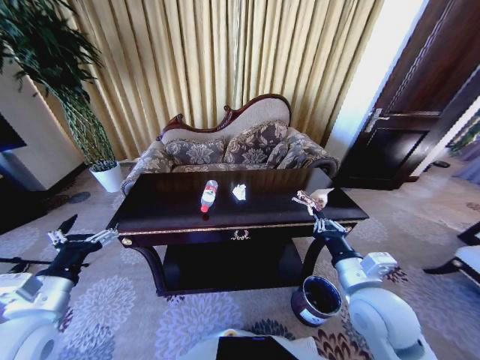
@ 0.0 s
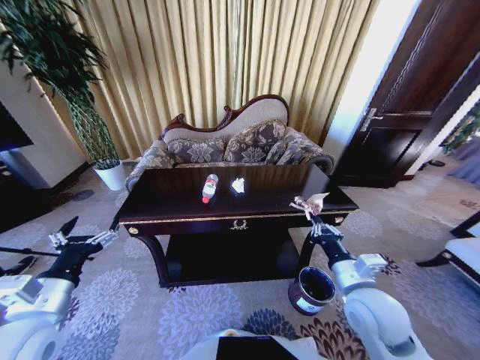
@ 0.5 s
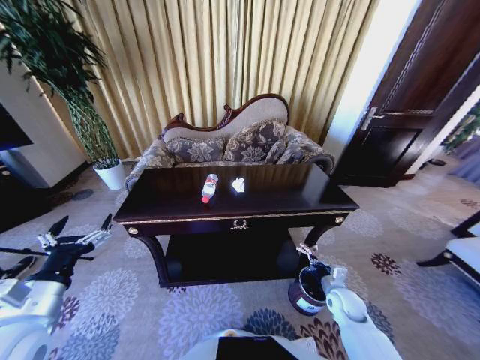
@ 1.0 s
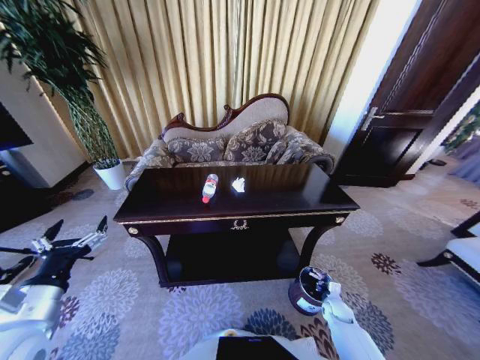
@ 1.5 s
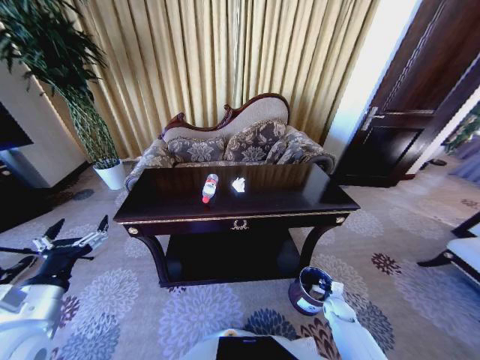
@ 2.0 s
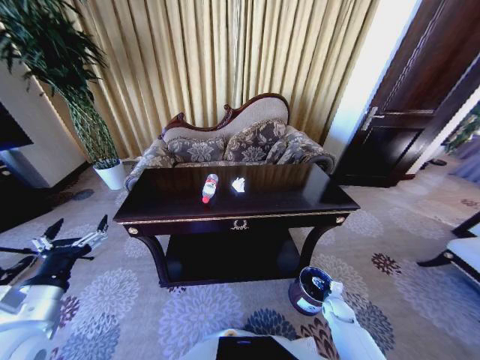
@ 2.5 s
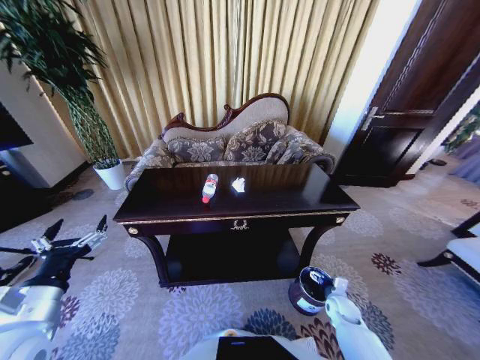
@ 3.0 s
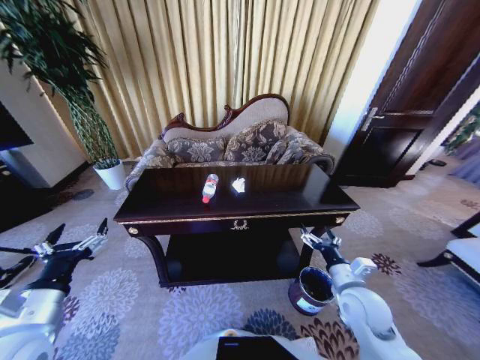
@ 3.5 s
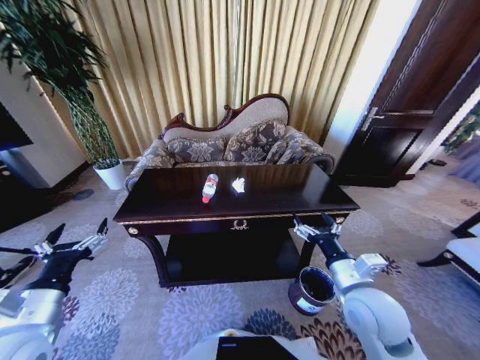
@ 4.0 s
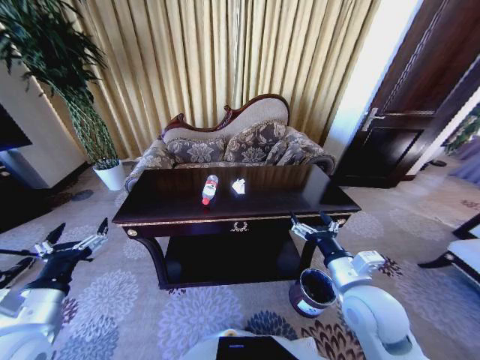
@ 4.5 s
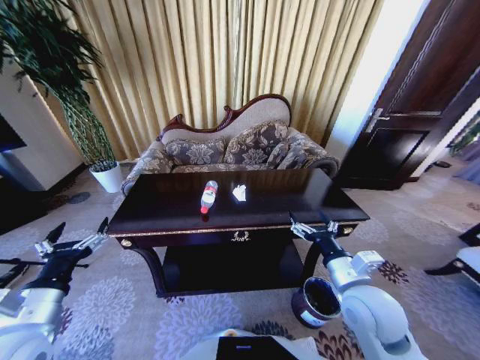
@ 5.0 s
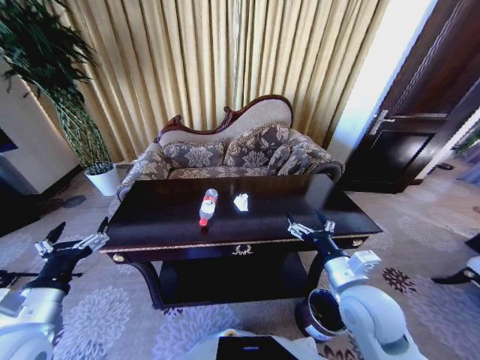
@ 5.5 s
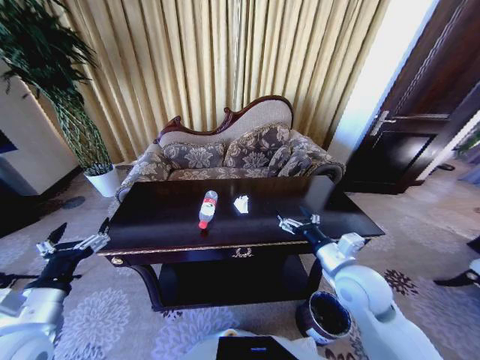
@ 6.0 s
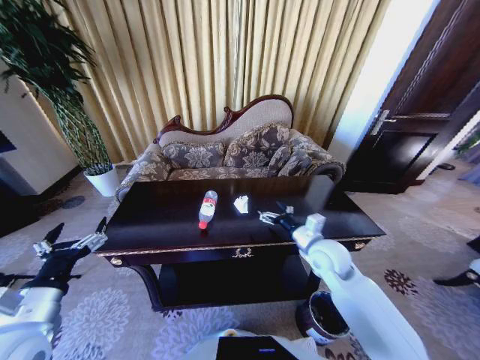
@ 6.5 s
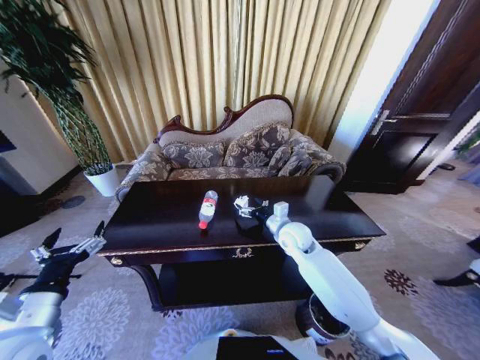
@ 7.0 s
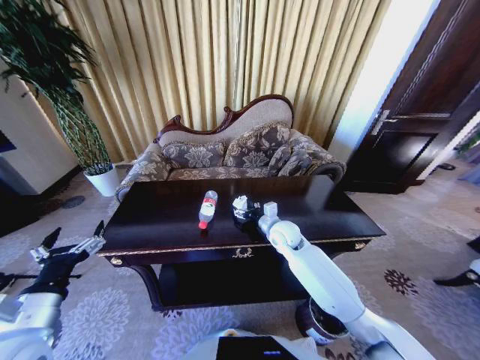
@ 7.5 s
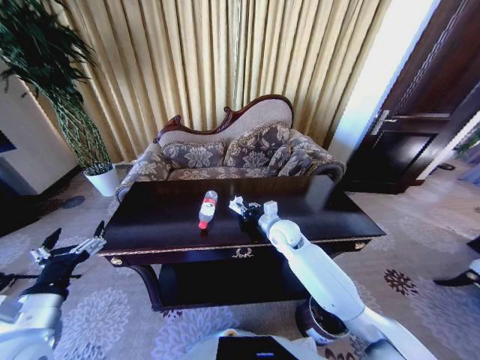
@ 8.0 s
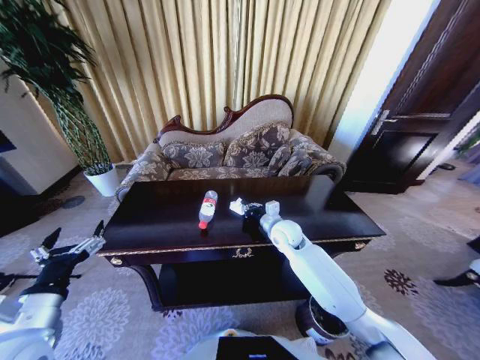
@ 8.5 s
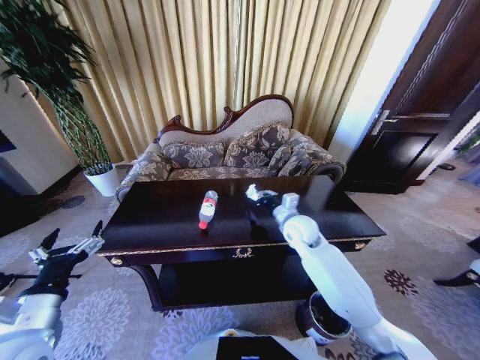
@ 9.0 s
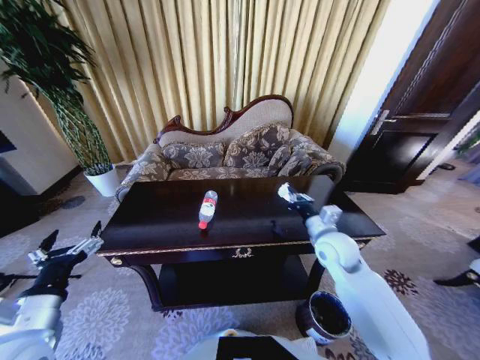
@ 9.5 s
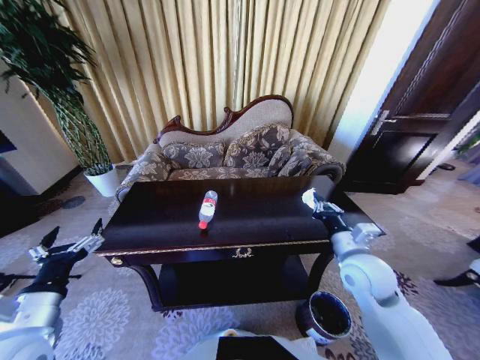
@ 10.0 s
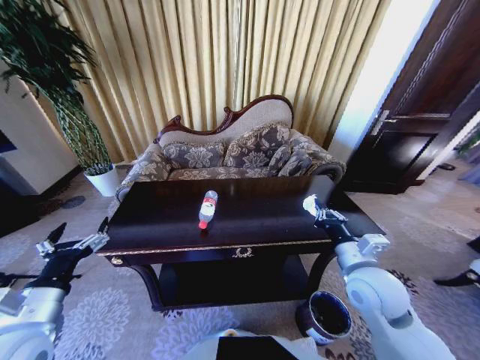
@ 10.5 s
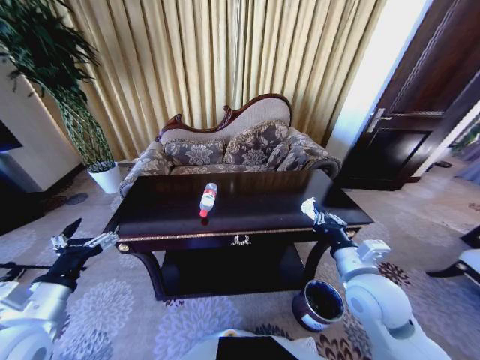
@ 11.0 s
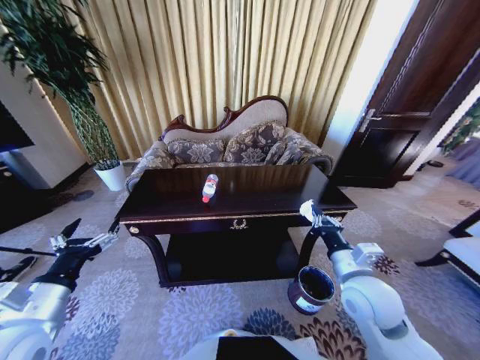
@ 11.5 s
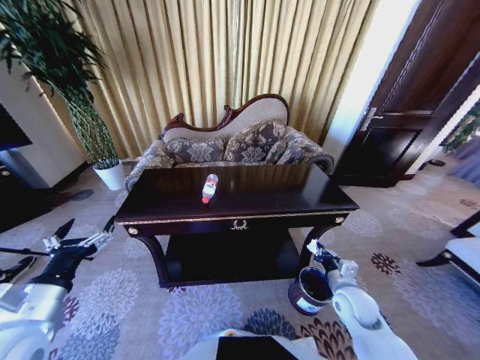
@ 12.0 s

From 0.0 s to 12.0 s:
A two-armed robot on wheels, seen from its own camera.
Task of the whole recording: Move to the front of the table and place the trash on the table into the trash bin.
From 0.0 s to 2.0 s: The right gripper goes approximately 35 cm downward, and opens its fingers.
From 2.0 s to 4.0 s: The right gripper travels upward by about 35 cm, and opens up.
From 6.0 s to 8.0 s: The right gripper moves forward and to the left, about 20 cm, and closes.
From 8.0 s to 10.0 s: The right gripper shifts roughly 20 cm backward, to the right and upward.
From 10.0 s to 12.0 s: The right gripper goes roughly 15 cm downward.

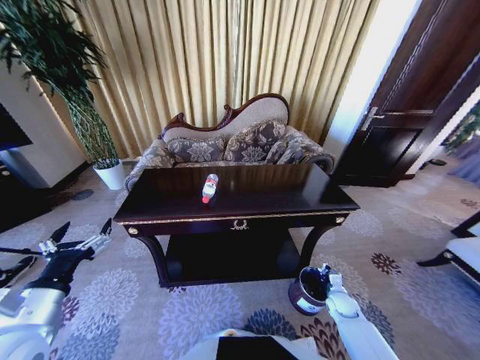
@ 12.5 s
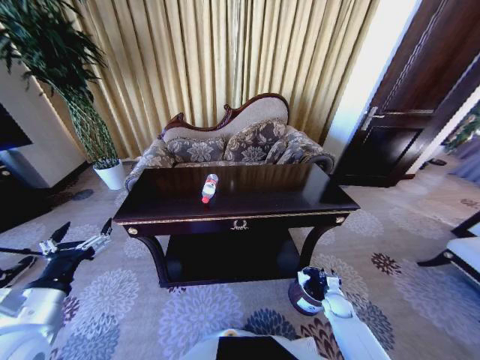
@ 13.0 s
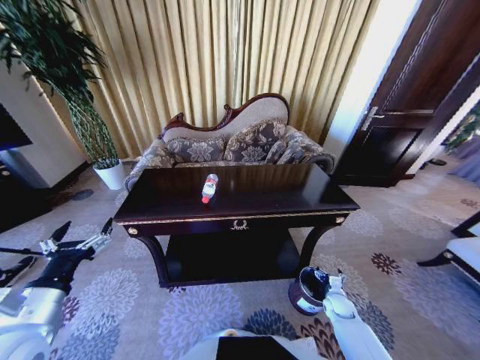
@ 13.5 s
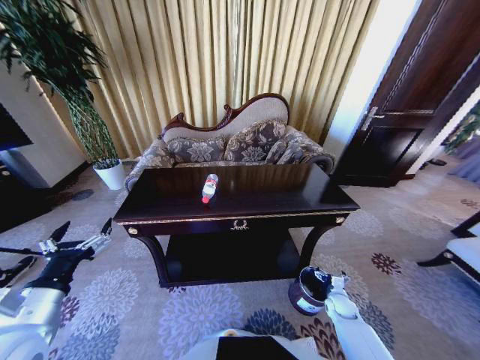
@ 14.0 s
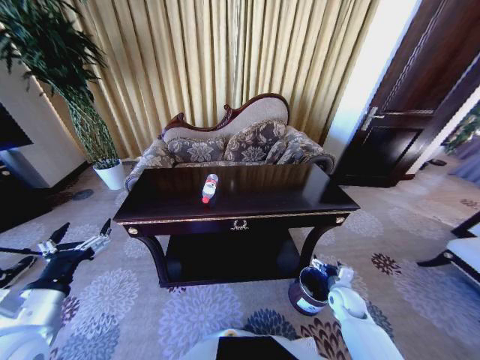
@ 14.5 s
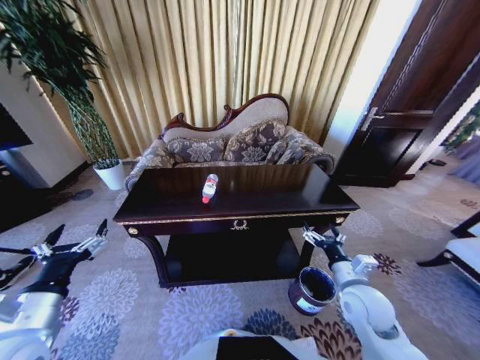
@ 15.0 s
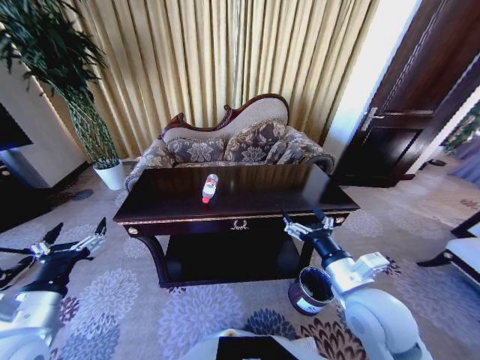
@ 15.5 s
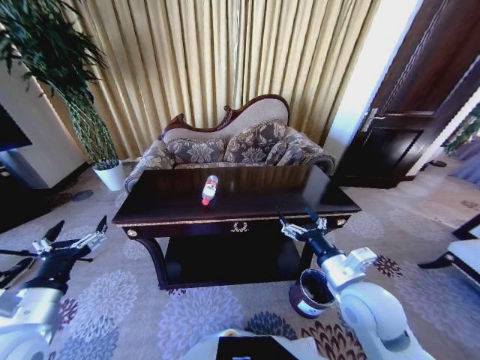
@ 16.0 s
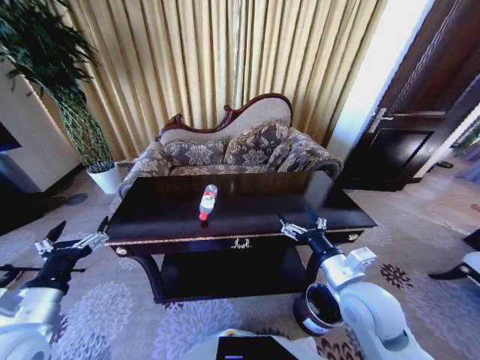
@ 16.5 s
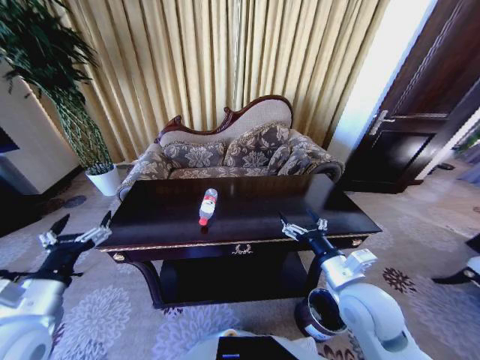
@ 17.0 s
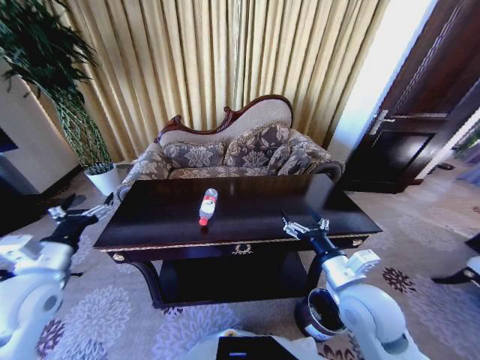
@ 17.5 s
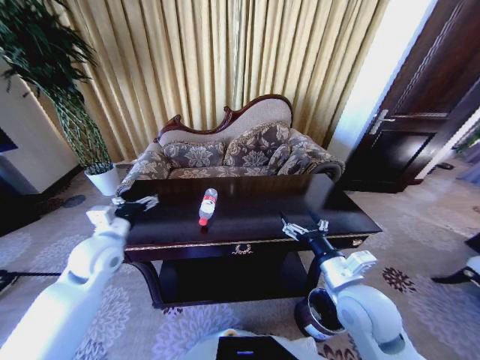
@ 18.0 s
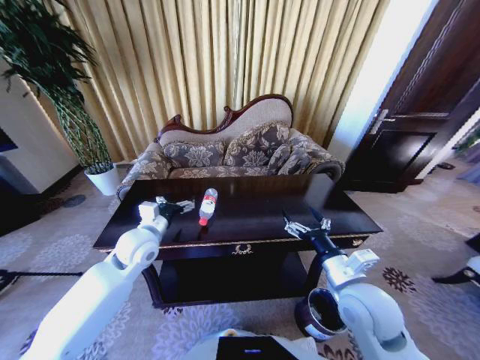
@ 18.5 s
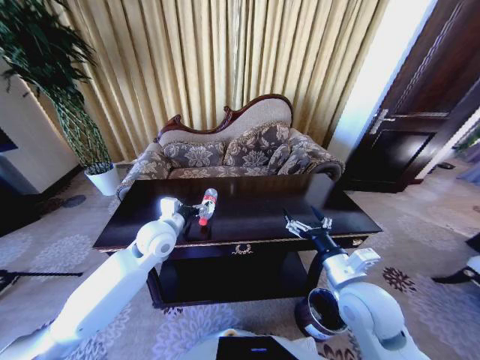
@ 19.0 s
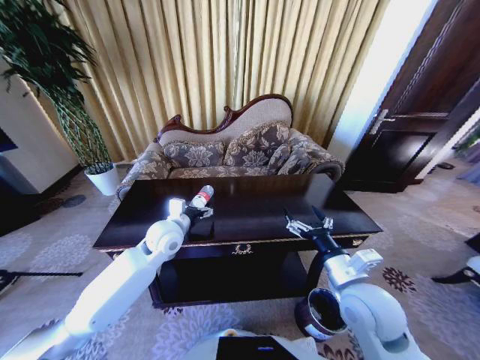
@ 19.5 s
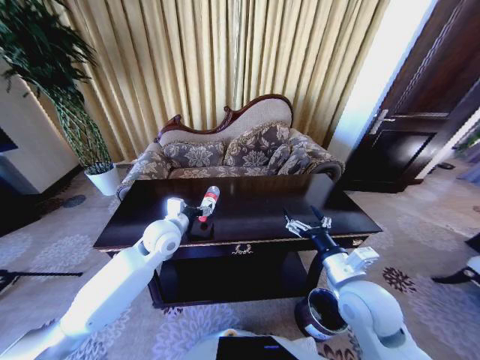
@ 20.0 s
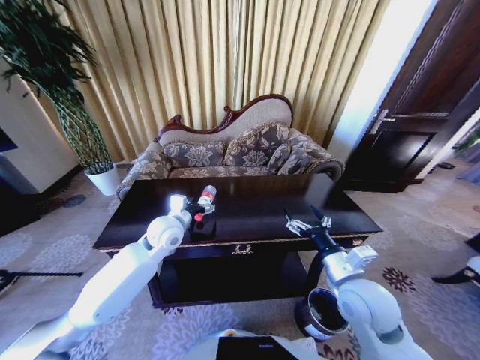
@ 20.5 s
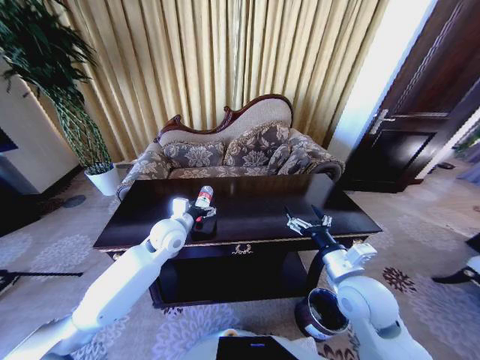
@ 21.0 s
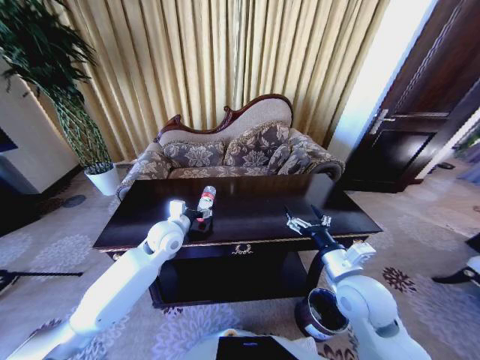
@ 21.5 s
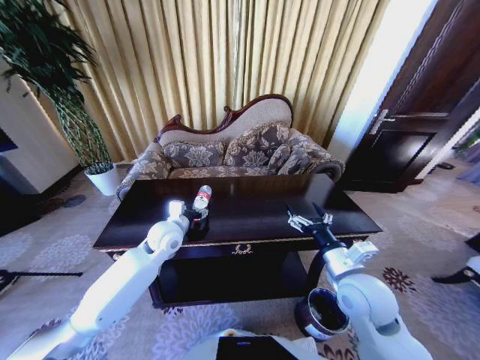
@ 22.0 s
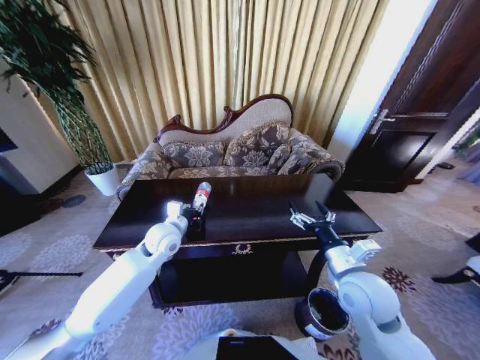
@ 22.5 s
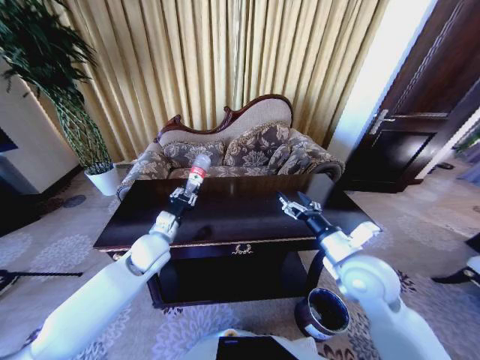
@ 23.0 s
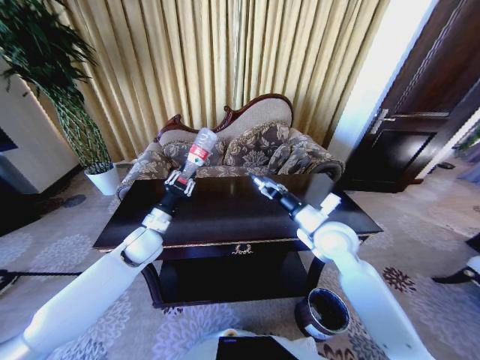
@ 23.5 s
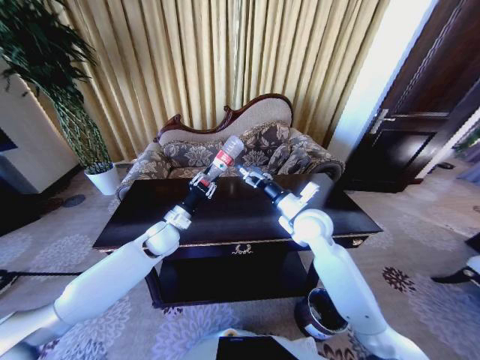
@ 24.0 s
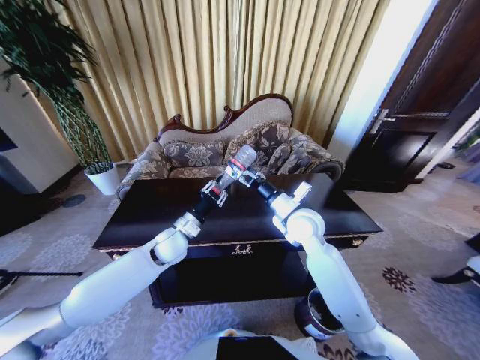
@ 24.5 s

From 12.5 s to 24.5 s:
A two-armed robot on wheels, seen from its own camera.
Task of the whole recording: Move to the front of the table and place the trash on the table into the trash bin.
From 12.5 s to 14.5 s: The right gripper shifts approximately 5 cm upward, and opens.
From 14.5 s to 16.5 s: The right gripper shifts approximately 30 cm upward and to the left.
From 16.5 s to 18.5 s: The left gripper is displaced forward and to the right by about 25 cm.
From 18.5 s to 20.5 s: The left gripper is displaced to the right by approximately 5 cm.
From 20.5 s to 22.5 s: The left gripper closes.
From 22.5 s to 24.5 s: The right gripper moves forward and to the left, about 20 cm.

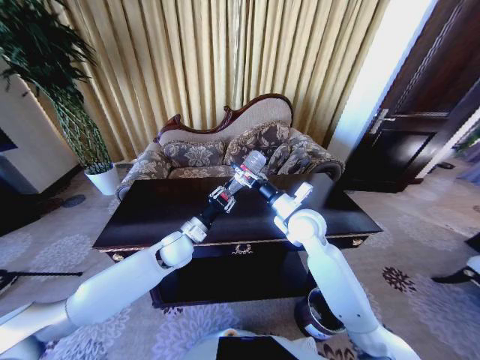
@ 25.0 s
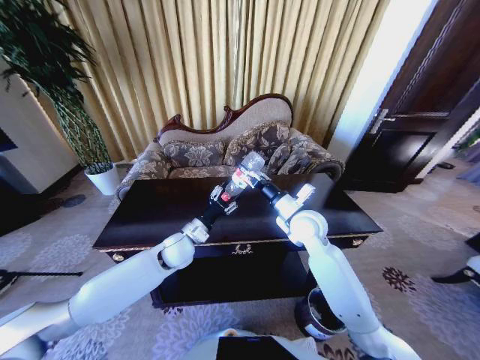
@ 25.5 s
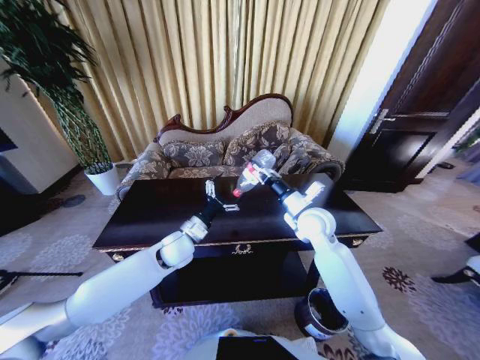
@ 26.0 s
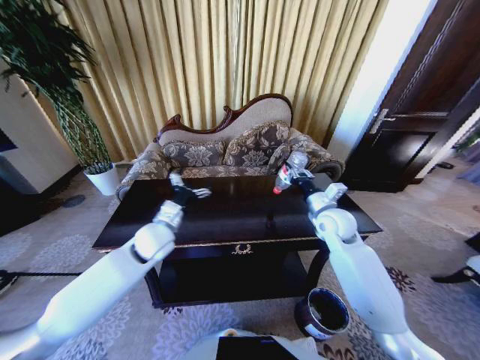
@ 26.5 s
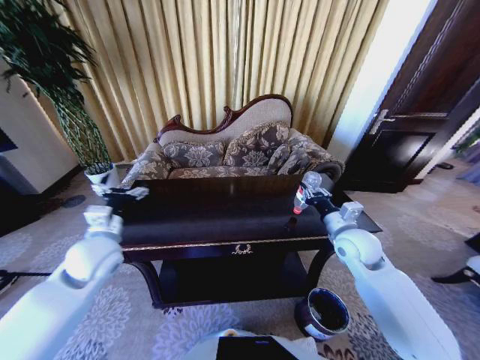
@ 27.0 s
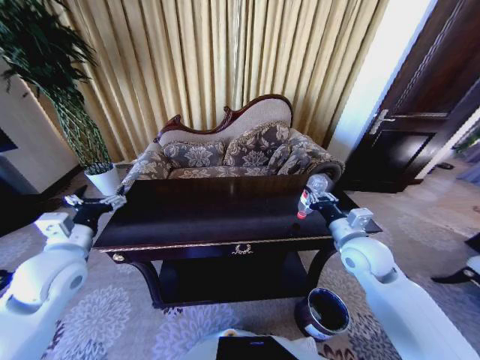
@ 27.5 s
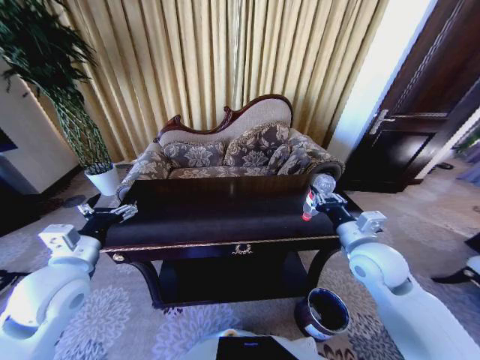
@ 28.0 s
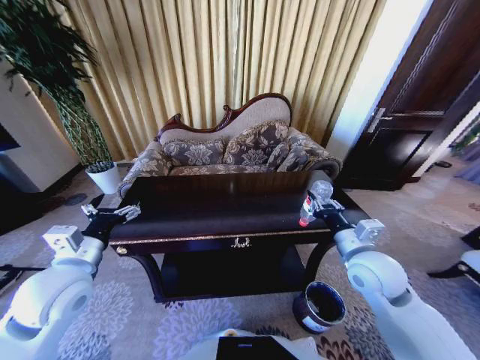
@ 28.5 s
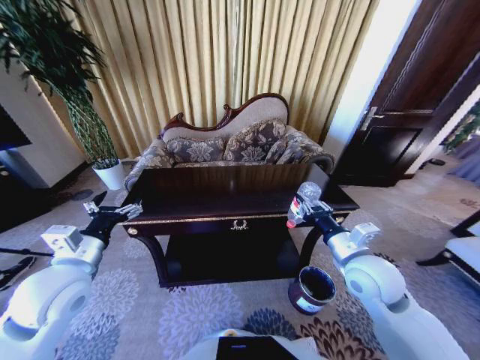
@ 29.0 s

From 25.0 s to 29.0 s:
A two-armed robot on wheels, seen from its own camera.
Task of the whole recording: Move to the front of the table and place the trash on the table into the trash bin.
From 25.0 s to 27.0 s: The right gripper is displaced to the right by some 15 cm, and closes. The left gripper travels to the left, upward and backward by about 20 cm, and opens its fingers.
From 27.0 s to 29.0 s: The grippers both shift backward by some 10 cm.
